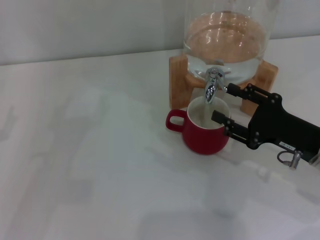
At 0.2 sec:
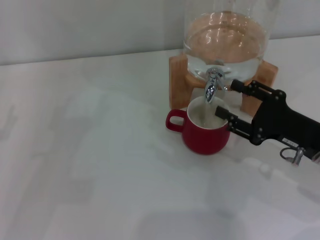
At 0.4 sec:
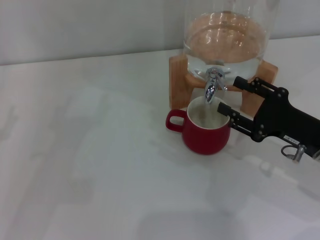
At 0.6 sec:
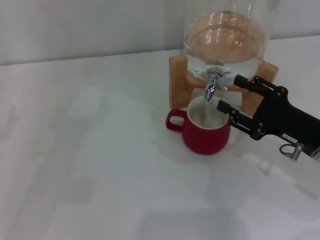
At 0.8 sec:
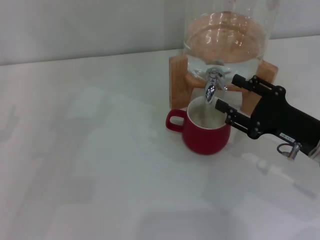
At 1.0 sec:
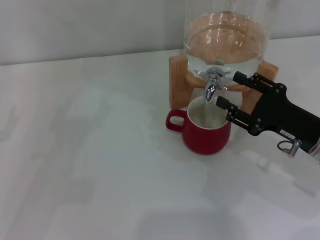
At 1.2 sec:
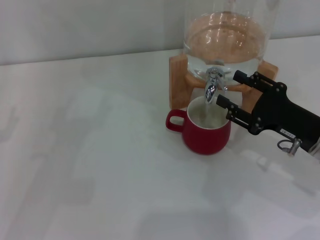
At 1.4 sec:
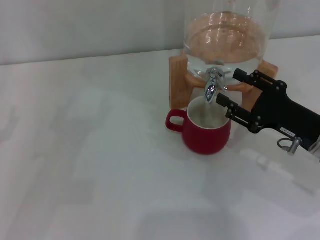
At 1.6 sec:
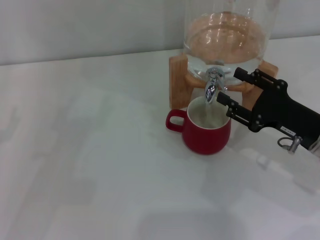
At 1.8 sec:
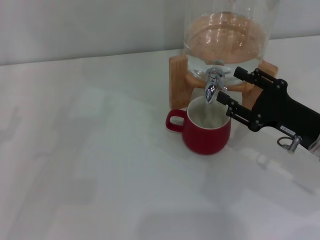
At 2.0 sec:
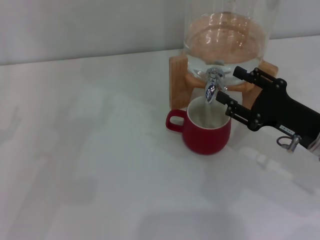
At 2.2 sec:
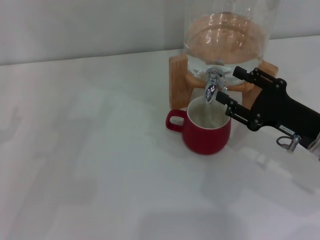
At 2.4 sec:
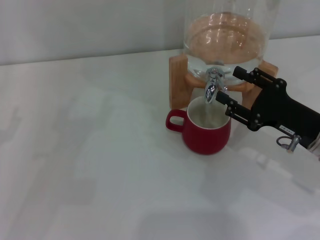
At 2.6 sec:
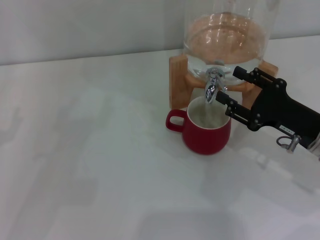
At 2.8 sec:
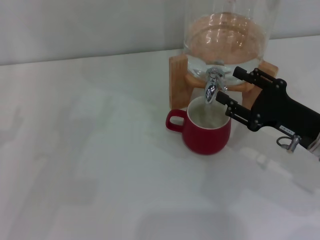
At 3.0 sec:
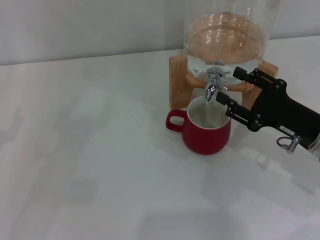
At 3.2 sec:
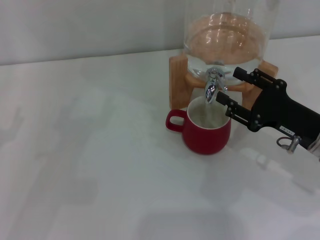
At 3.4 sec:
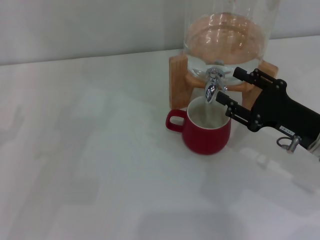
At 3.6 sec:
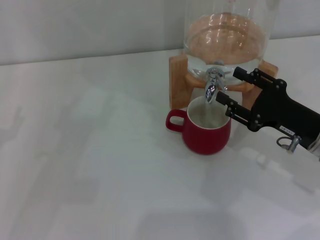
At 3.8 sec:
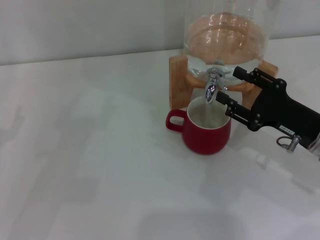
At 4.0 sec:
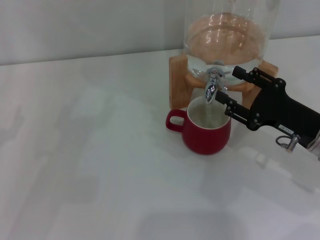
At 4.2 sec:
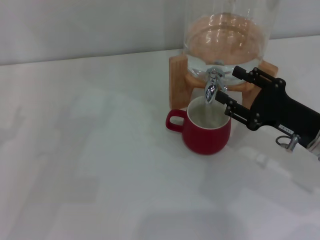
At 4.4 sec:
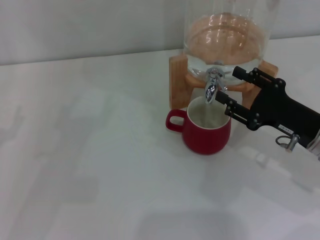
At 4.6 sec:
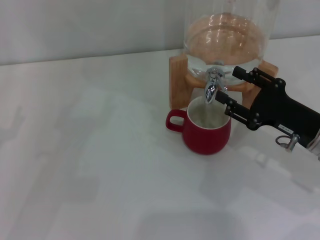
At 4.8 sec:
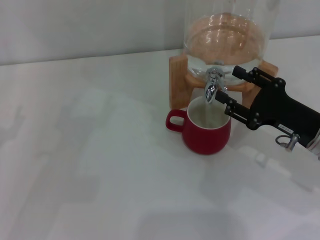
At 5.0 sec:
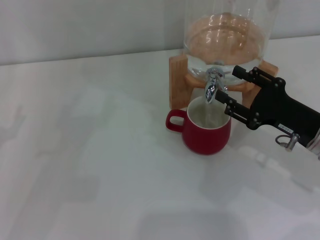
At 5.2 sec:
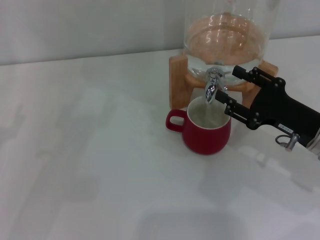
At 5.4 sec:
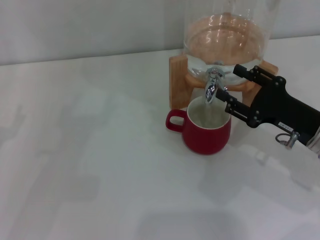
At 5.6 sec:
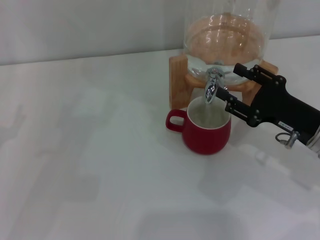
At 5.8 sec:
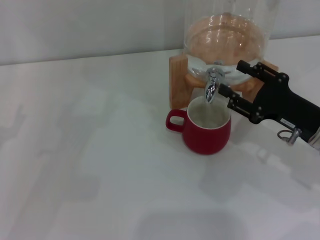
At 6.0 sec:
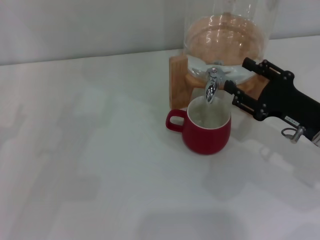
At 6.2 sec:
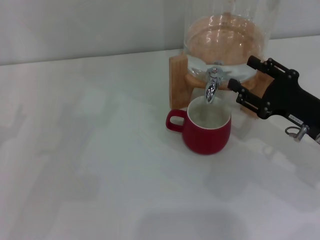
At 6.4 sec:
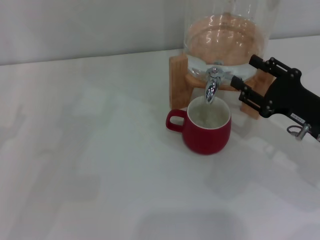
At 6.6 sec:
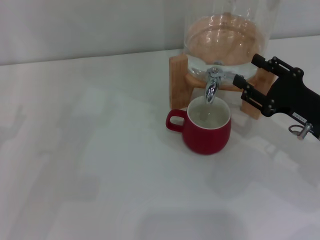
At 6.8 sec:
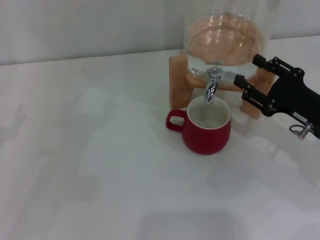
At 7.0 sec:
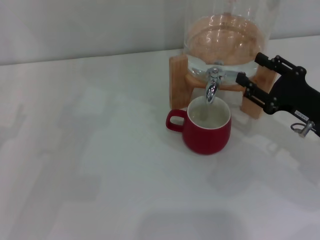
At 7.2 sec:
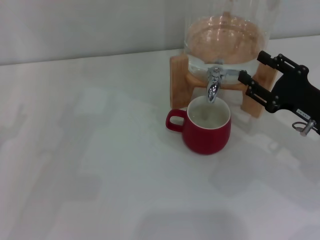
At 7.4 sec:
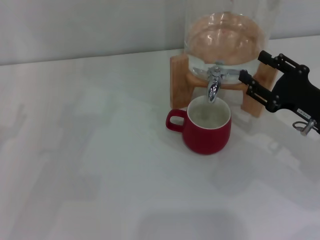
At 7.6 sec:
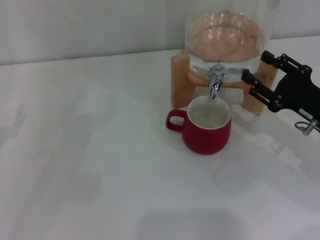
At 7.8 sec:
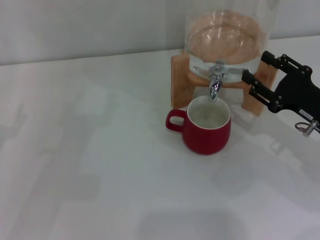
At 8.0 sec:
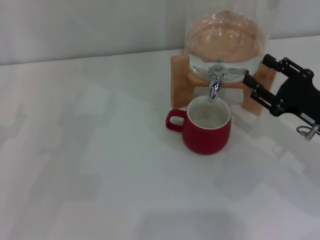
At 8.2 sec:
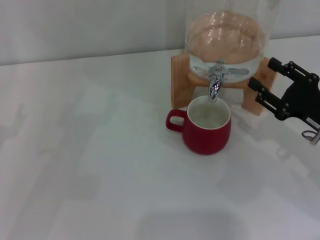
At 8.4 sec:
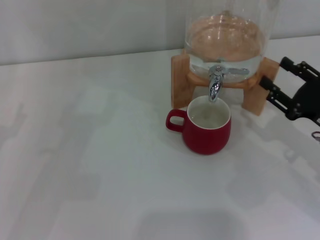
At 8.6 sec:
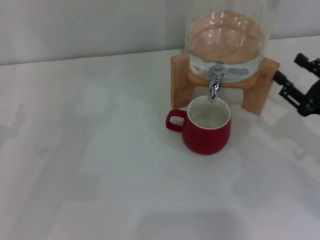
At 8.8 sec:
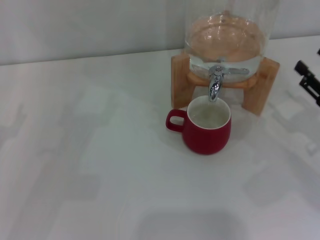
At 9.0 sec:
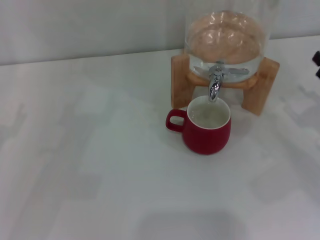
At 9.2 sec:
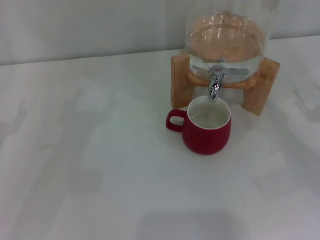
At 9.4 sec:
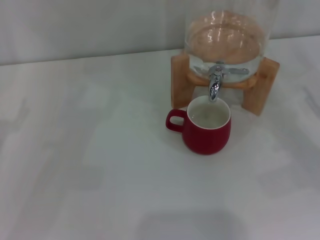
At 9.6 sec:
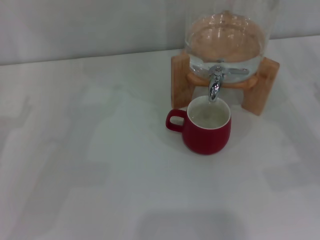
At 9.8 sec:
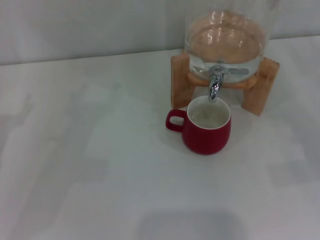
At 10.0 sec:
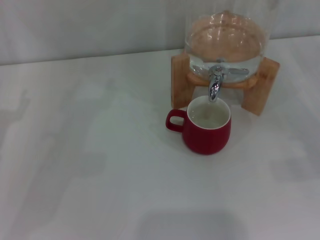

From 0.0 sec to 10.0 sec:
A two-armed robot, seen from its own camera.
Task of the whole recording: the left gripper pick up the red cup and place it horizontally under the faucet, the right gripper turn on the faucet to fill the cup, and then turn off the faucet.
Step, from 0.6 sec to 8.0 sec: Close the dispenser valve with the right gripper.
From 0.0 sec to 1.4 sec: The grippers make only small movements.
From 1.4 sec to 5.8 sec: Both grippers stay about where they are.
From 5.8 sec to 7.2 sec: There are only small adjustments of the grippers.
From 7.2 sec to 8.6 sec: The grippers stay close to where they were, moving slightly.
From 8.6 sec to 10.0 sec: The right gripper goes about 5 cm to the right.
